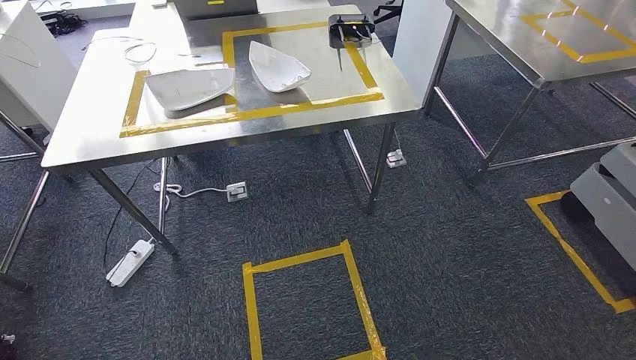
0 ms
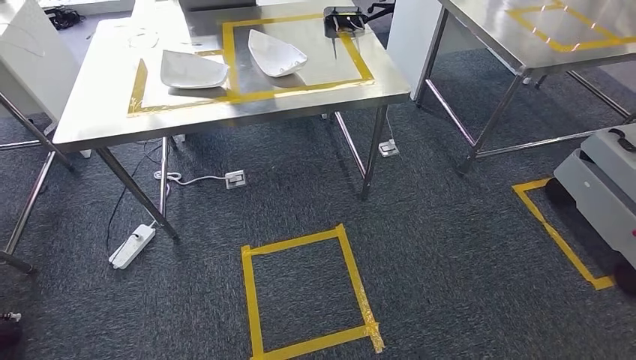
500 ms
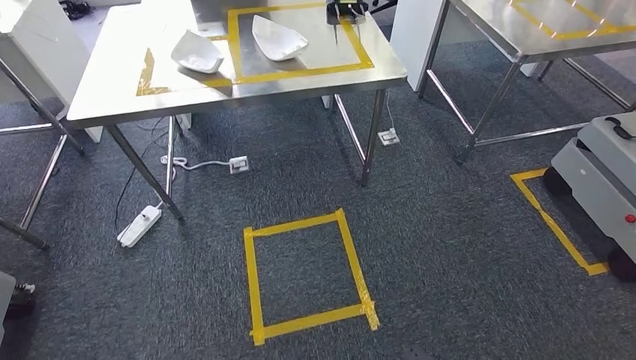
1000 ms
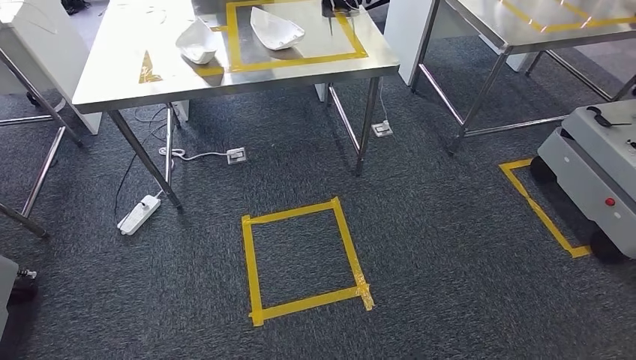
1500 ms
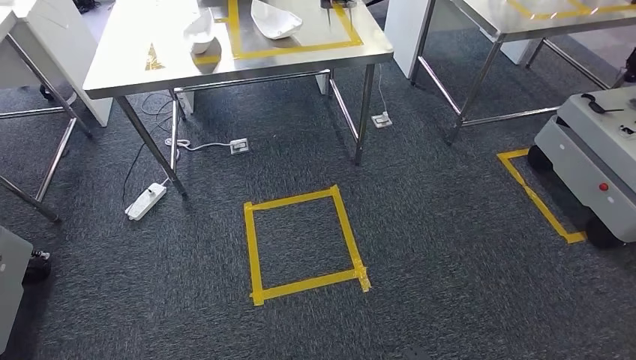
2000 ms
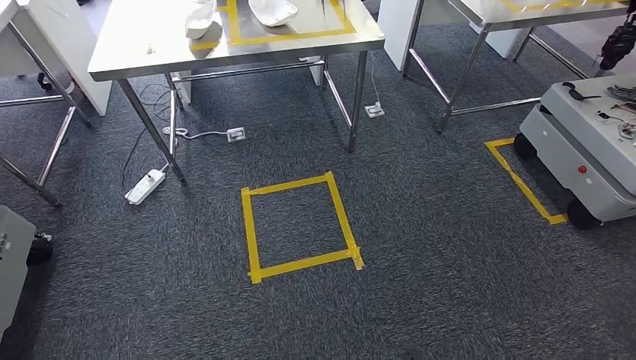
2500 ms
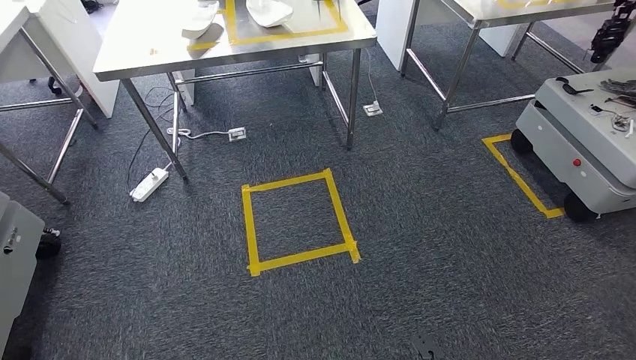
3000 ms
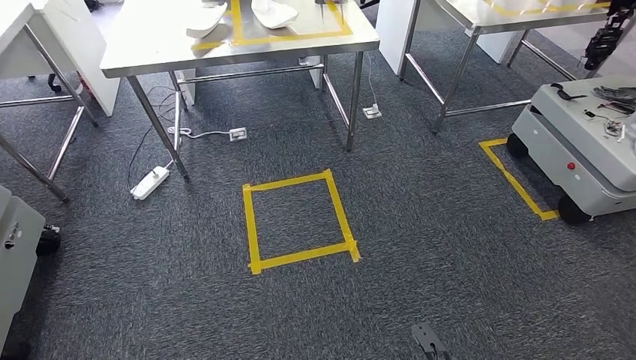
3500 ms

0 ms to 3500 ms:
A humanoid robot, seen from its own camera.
Step, 0 ms to 3500 ms: Move to the initial position of the workbench.
